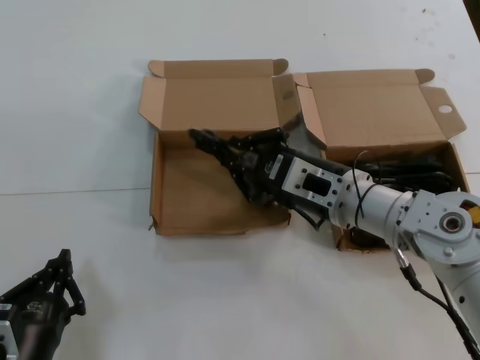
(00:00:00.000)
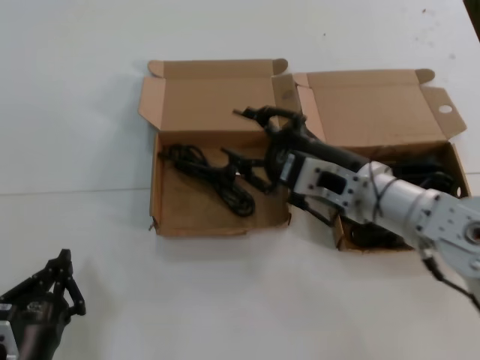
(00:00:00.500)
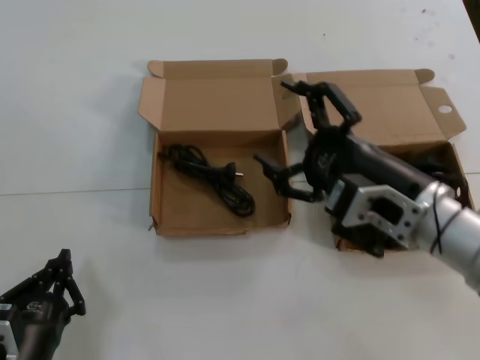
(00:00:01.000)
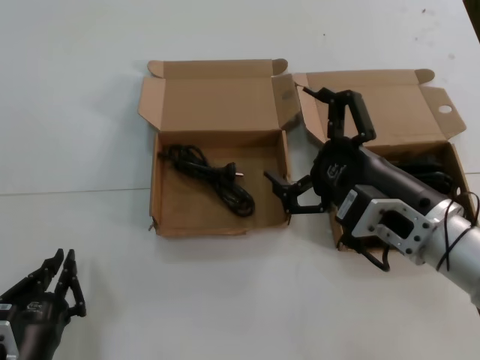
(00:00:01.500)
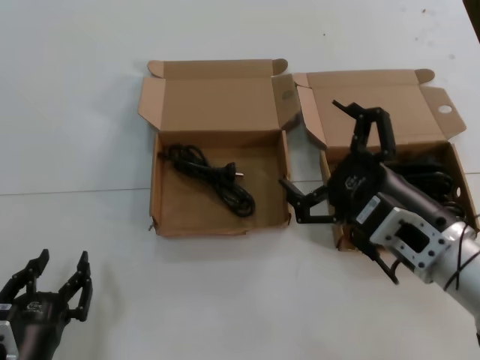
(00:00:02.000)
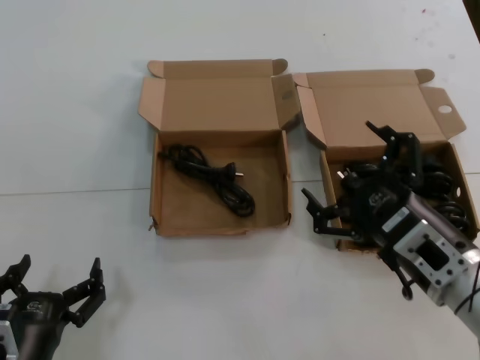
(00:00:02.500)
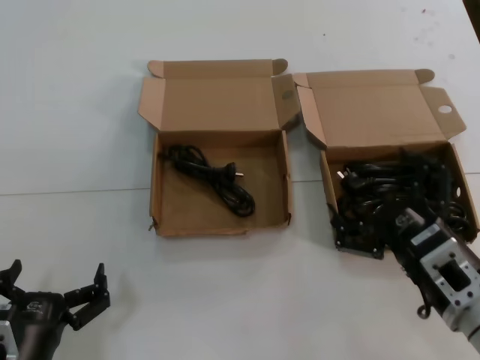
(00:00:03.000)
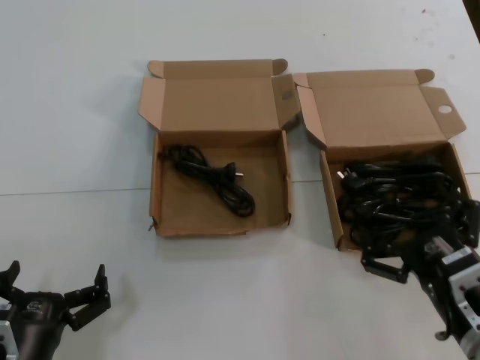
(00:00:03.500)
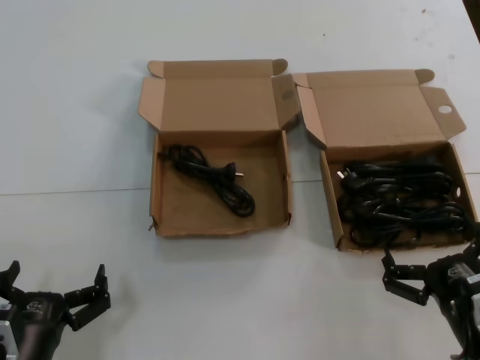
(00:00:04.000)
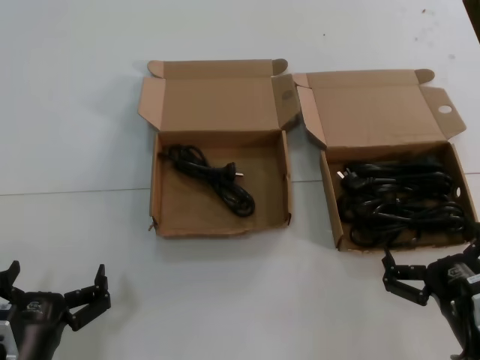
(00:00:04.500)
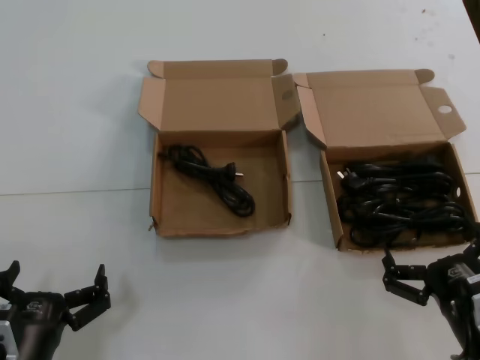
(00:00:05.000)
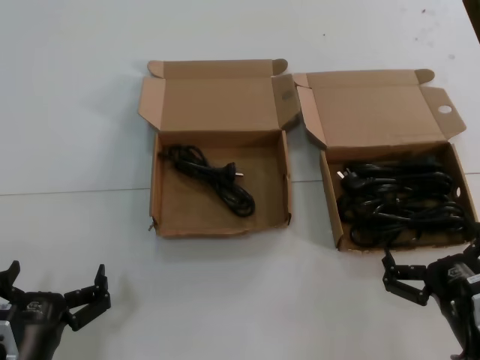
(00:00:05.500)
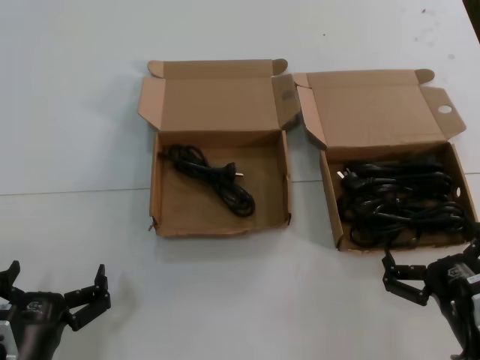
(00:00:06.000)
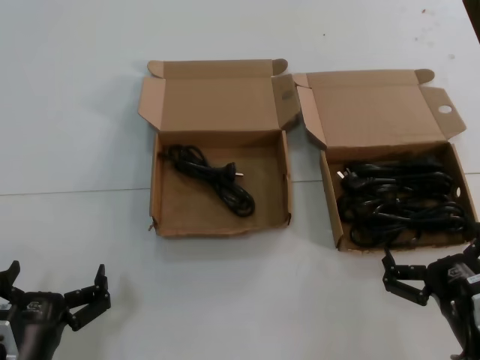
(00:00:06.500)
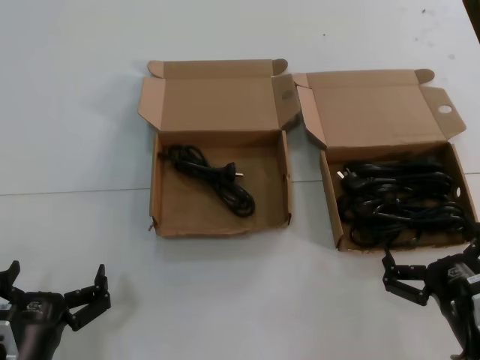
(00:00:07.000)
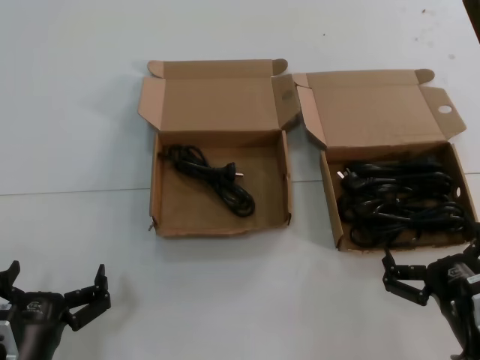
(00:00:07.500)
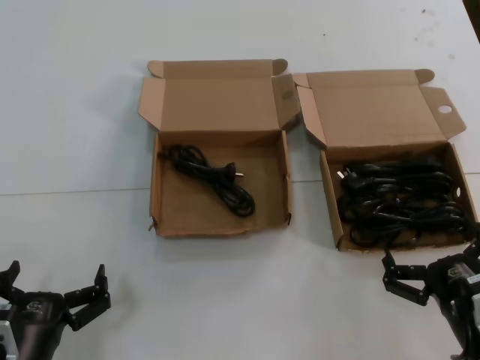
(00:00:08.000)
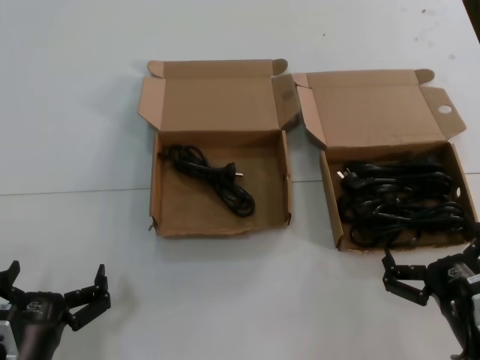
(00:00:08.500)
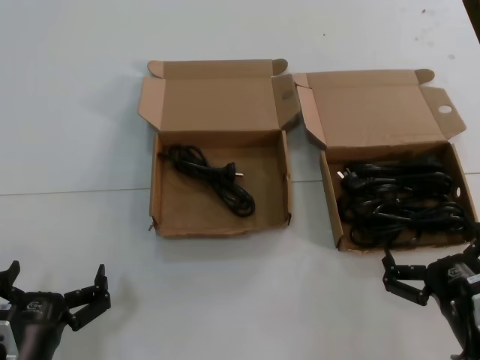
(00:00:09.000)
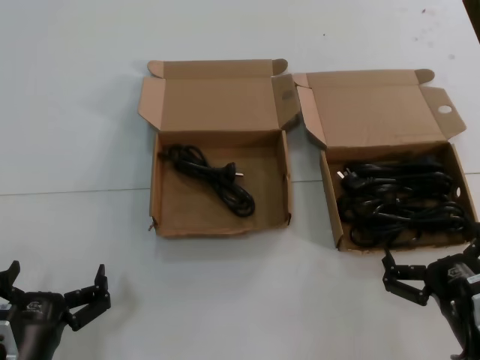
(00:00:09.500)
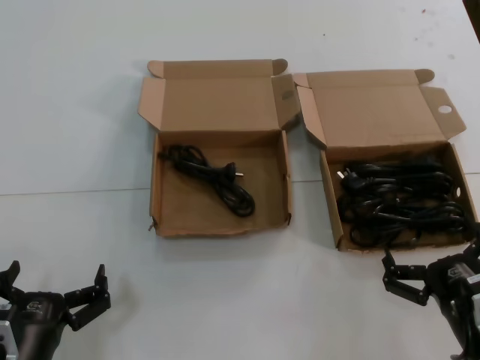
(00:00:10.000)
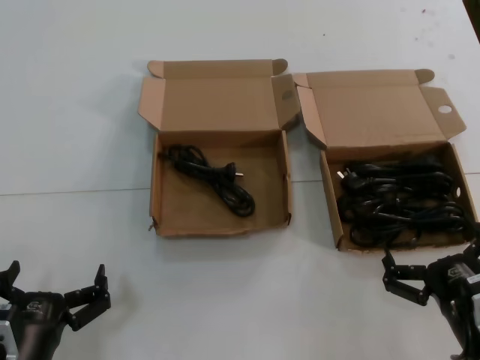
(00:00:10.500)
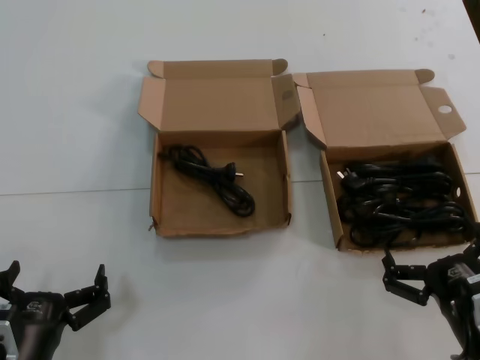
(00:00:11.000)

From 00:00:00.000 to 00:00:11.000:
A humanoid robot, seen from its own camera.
Task of the whole recording: take the parts from the box containing them and put them into an empty box.
From 00:00:00.000 to 00:00:02.000: The right hand is displaced backward and to the right by roughly 15 cm.
From 00:00:02.000 to 00:00:03.500: The right hand moves downward, roughly 10 cm.
From 00:00:03.500 to 00:00:05.500: The hands move only a little.
From 00:00:05.500 to 00:00:11.000: Neither hand changes place.

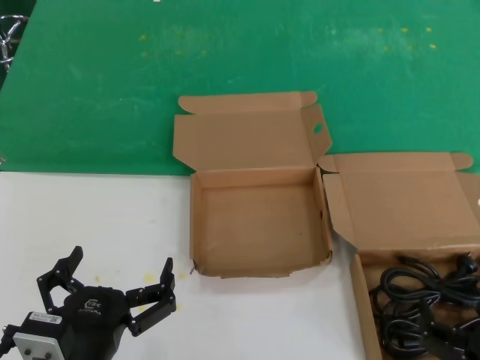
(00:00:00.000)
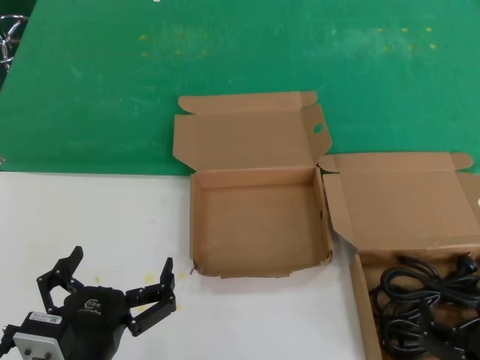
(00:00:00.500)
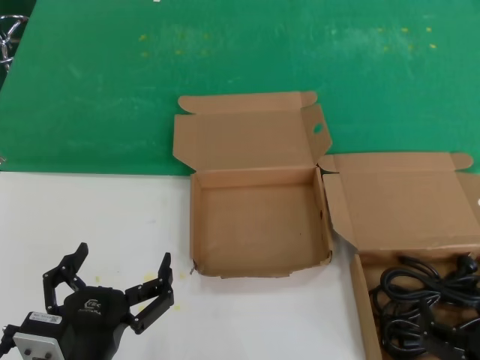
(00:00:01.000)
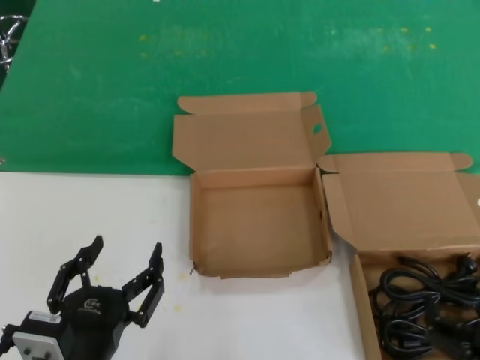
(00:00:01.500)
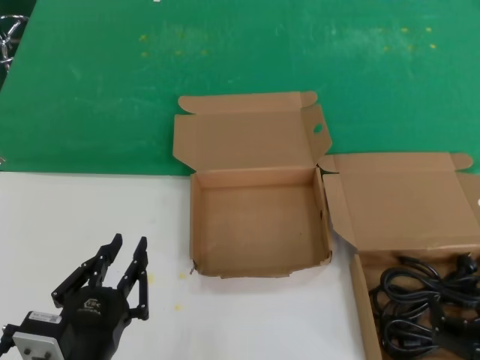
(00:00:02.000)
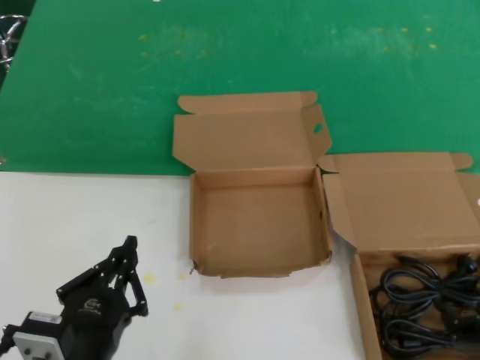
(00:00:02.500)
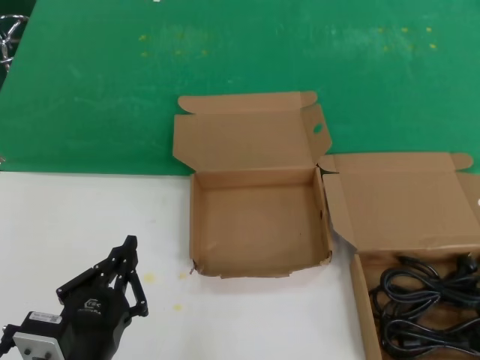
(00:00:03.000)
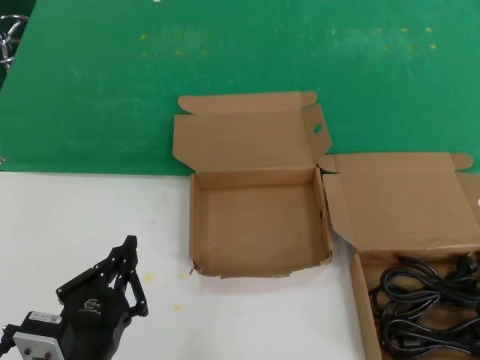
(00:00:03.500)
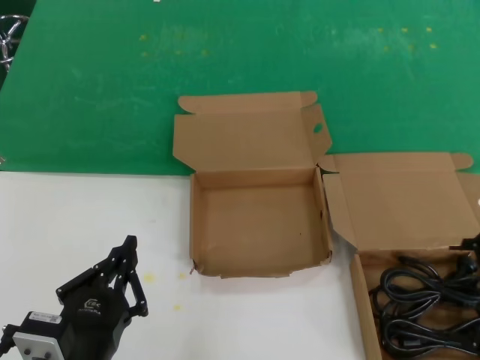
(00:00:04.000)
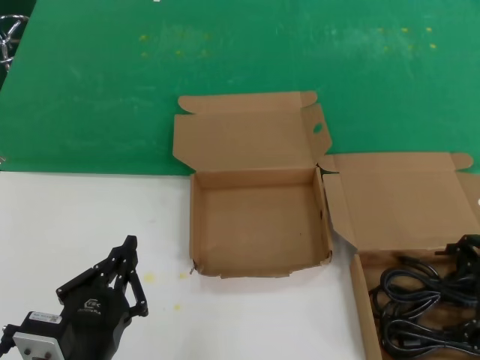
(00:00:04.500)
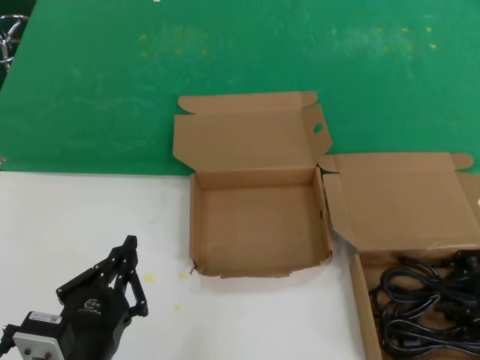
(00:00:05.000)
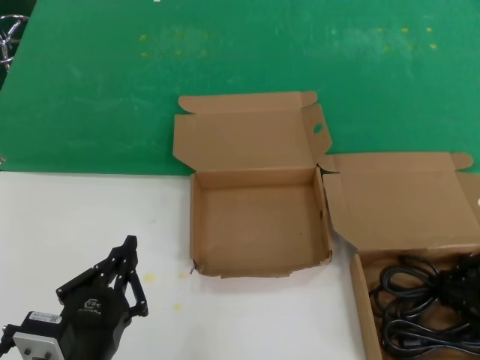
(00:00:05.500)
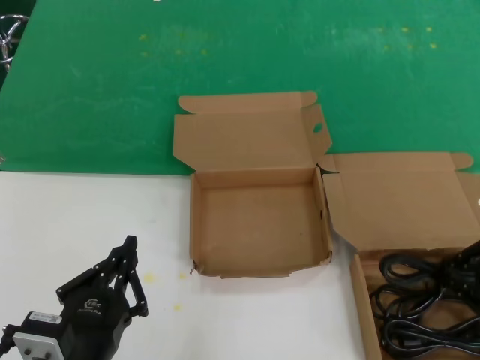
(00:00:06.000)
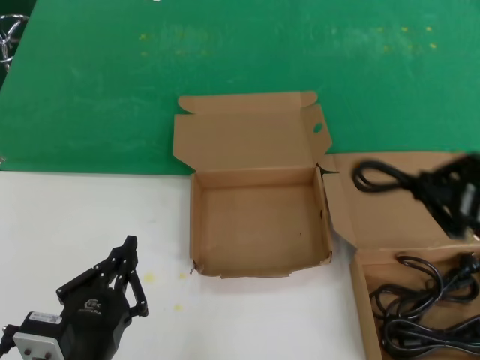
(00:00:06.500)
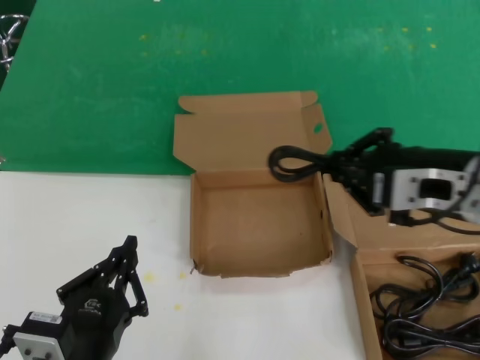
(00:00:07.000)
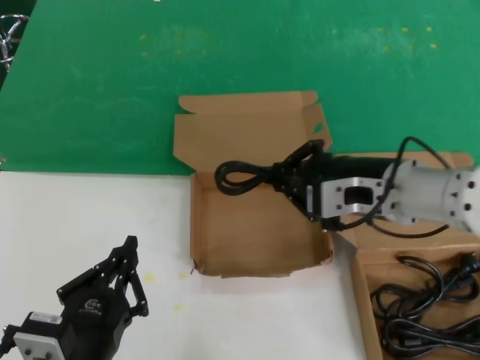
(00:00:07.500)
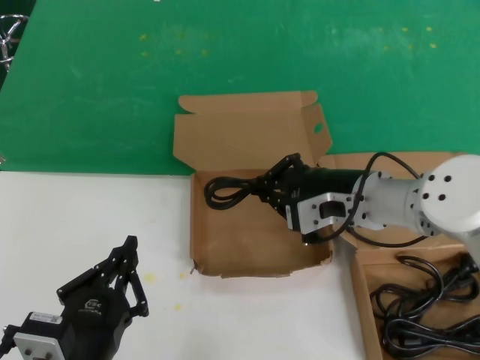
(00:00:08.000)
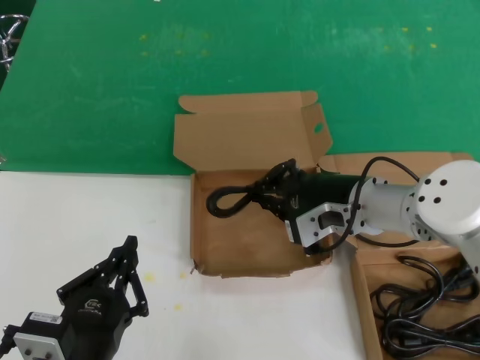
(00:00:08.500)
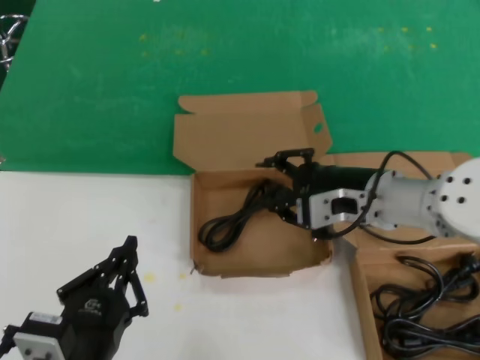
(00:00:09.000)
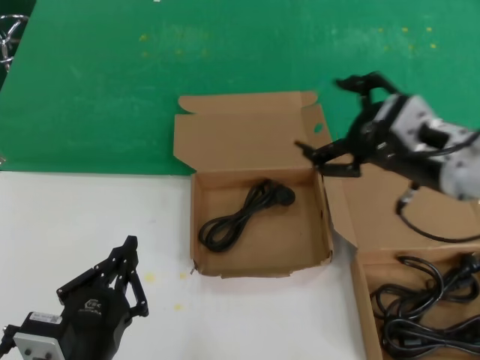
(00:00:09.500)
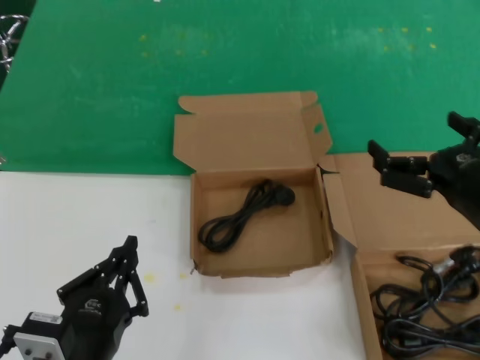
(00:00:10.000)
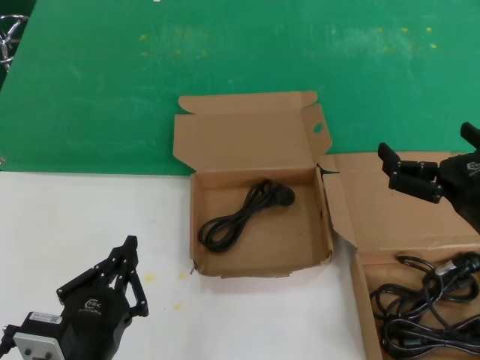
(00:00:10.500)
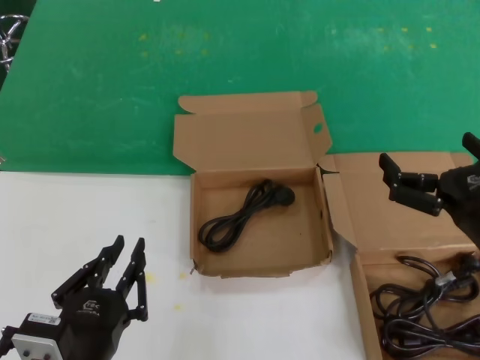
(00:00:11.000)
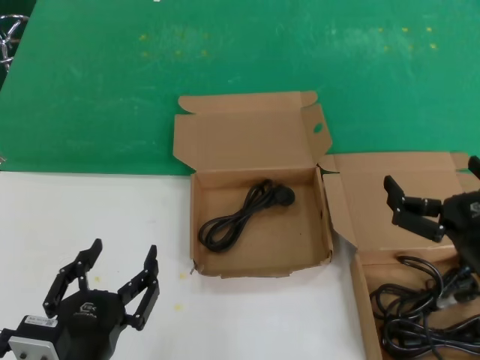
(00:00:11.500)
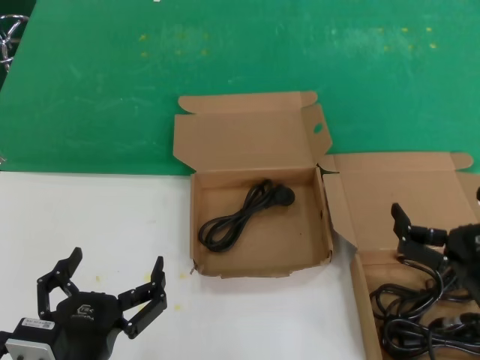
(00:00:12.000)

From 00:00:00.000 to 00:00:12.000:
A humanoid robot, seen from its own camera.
Task of the whole recording: take the parts from the box containing them and put them into an empty box.
Step, from 00:00:00.000 to 00:00:05.500: Grasp the data cable.
Step, from 00:00:06.000 to 00:00:09.000: Place the data cable in the another box.
From 00:00:00.000 to 00:00:02.000: The hands move only a little.
From 00:00:02.000 to 00:00:04.000: The right hand is displaced upward, forward and to the right by roughly 20 cm.
From 00:00:04.000 to 00:00:06.000: The hands move only a little.
From 00:00:06.000 to 00:00:08.000: The right hand is displaced to the left and forward by about 25 cm.
From 00:00:08.000 to 00:00:10.000: The right hand moves backward and to the right, about 20 cm.
From 00:00:10.000 to 00:00:12.000: The right hand goes roughly 10 cm downward.

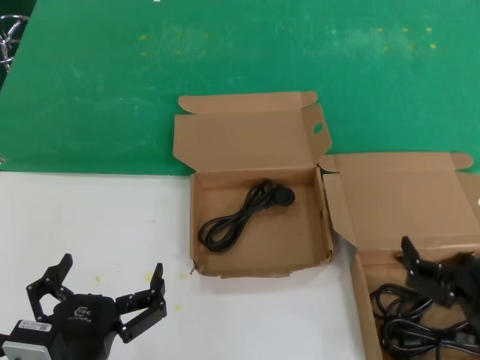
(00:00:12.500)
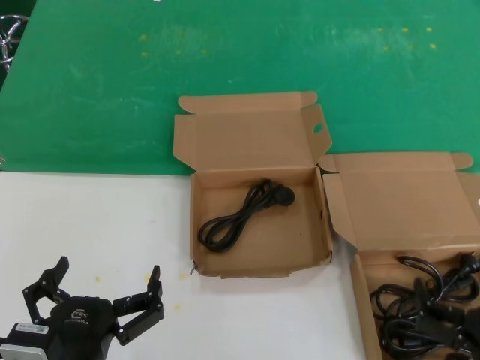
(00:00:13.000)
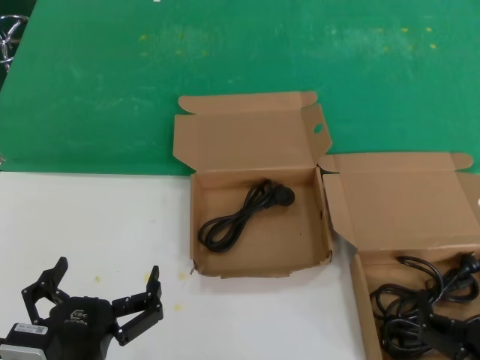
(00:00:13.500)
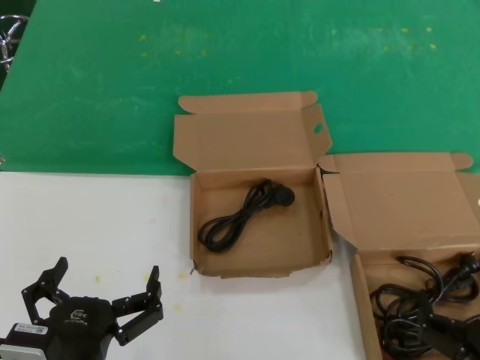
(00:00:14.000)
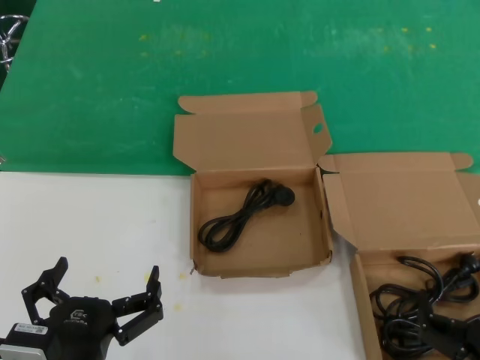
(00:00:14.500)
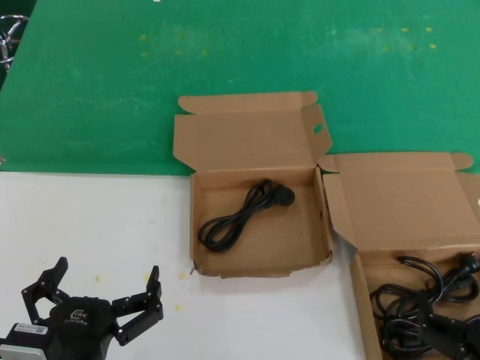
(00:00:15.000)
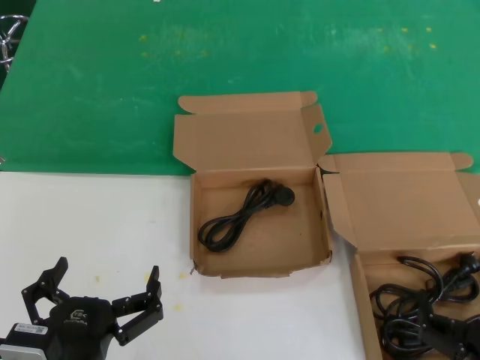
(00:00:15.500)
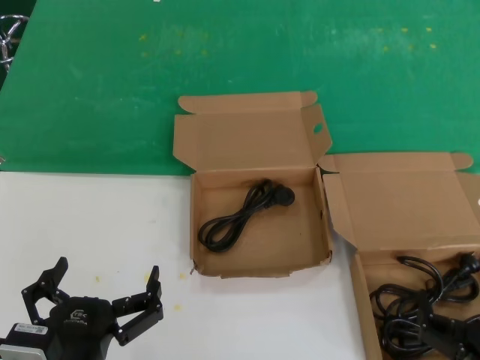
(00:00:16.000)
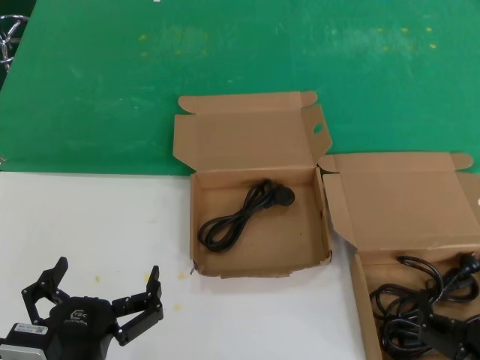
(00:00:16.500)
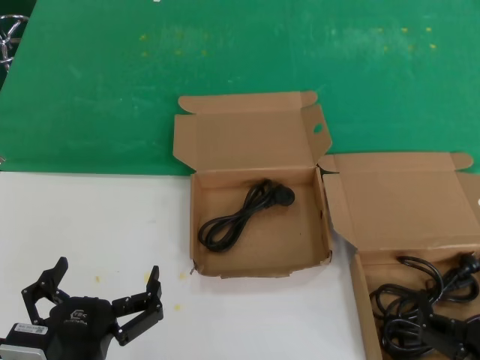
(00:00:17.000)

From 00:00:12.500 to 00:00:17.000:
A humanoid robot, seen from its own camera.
Task of the whole recording: take the parts from the box containing them and put them into an empty box.
From 00:00:12.500 to 00:00:14.500: The right hand ends up about 5 cm from where it was.
From 00:00:14.500 to 00:00:17.000: Neither hand changes place.
